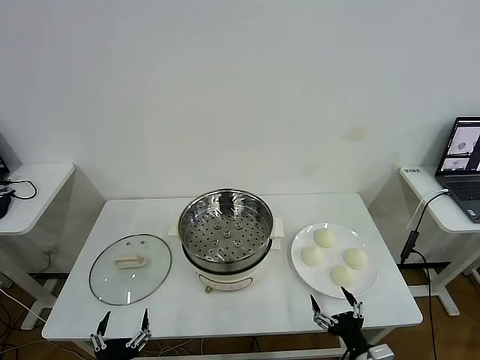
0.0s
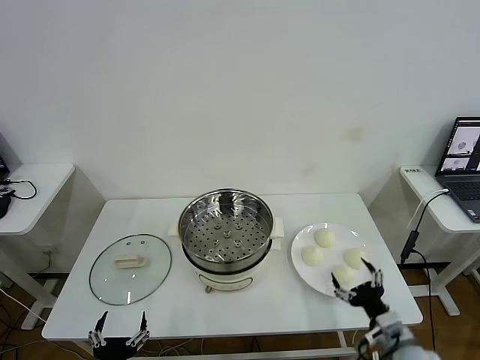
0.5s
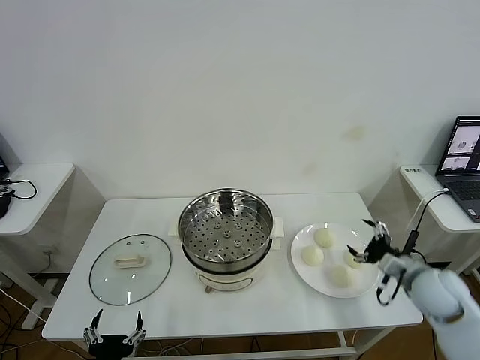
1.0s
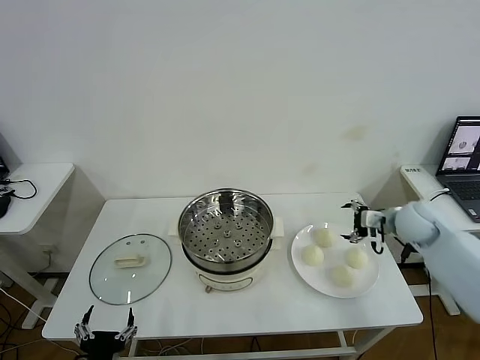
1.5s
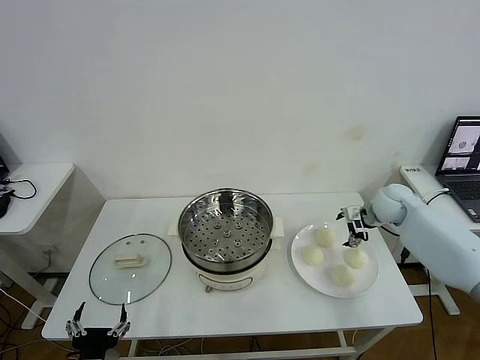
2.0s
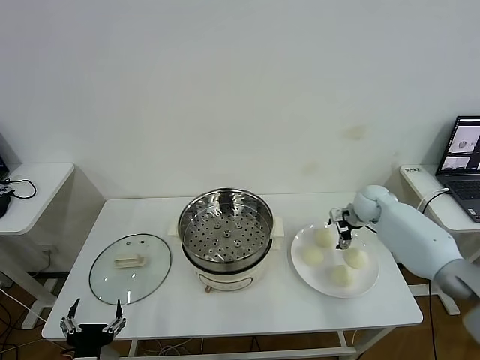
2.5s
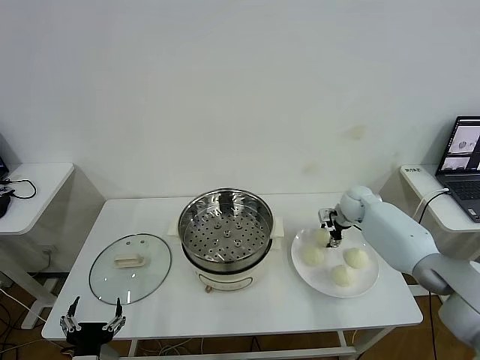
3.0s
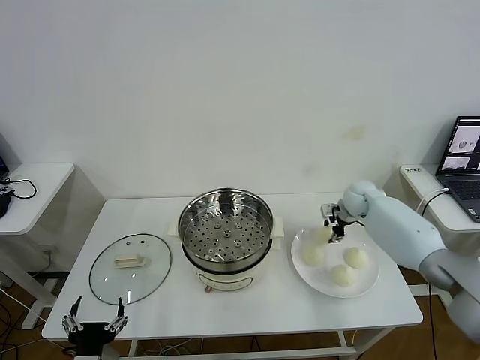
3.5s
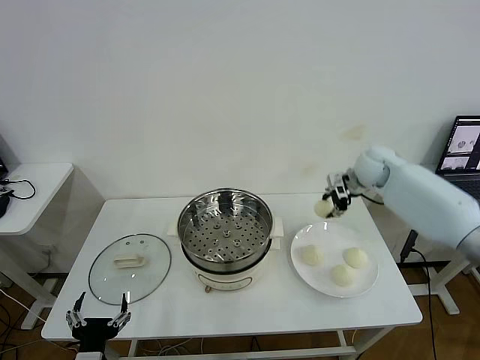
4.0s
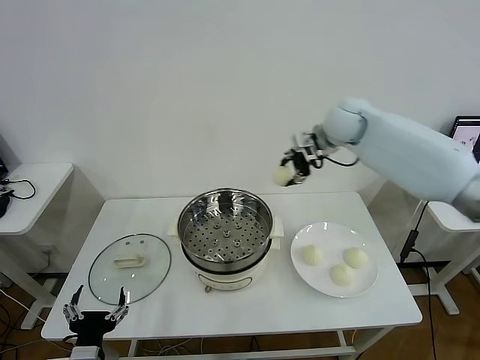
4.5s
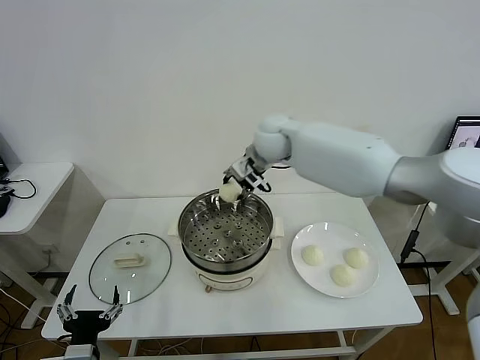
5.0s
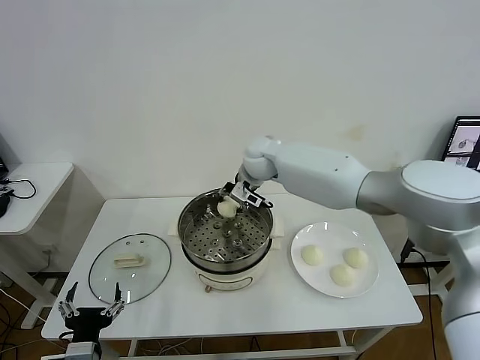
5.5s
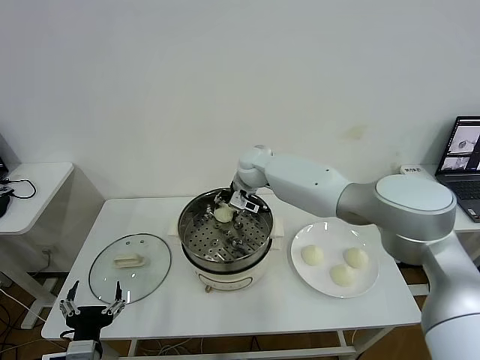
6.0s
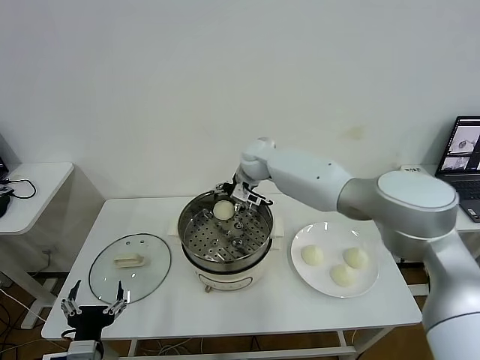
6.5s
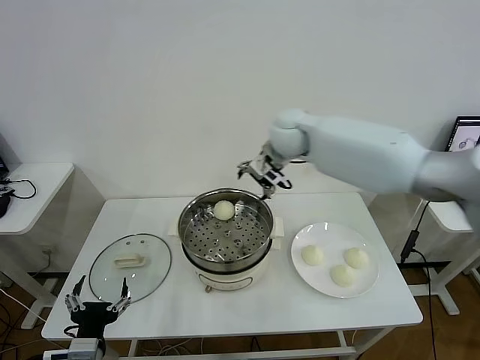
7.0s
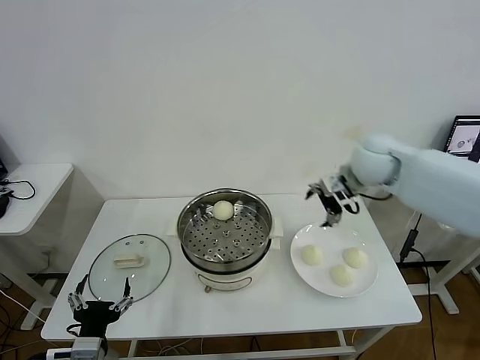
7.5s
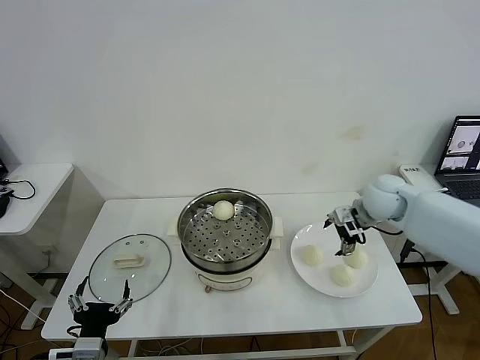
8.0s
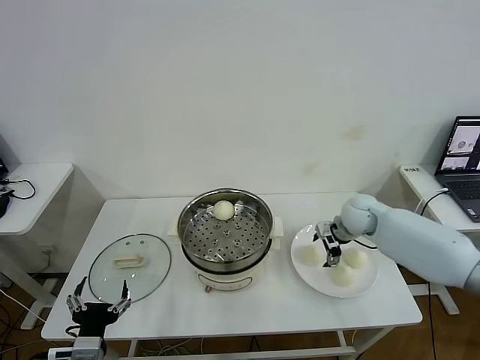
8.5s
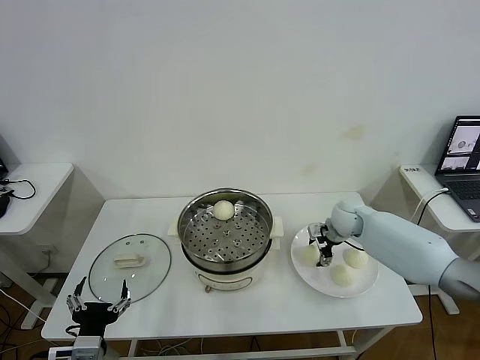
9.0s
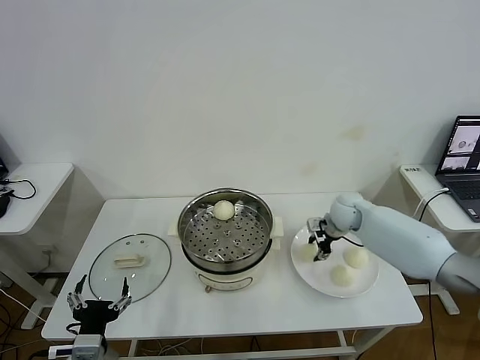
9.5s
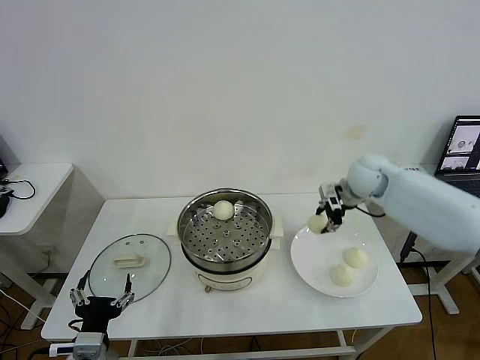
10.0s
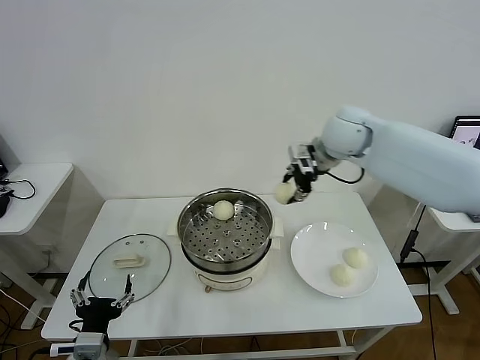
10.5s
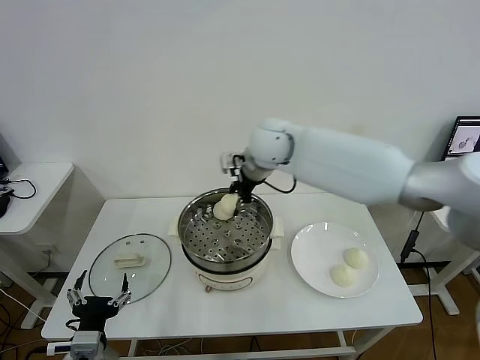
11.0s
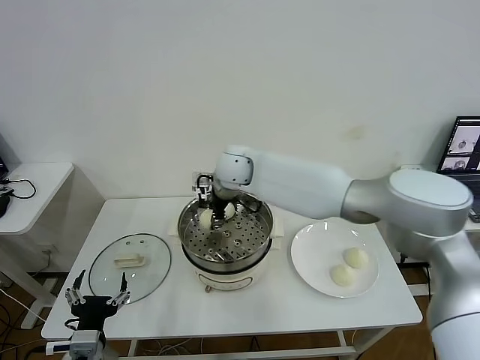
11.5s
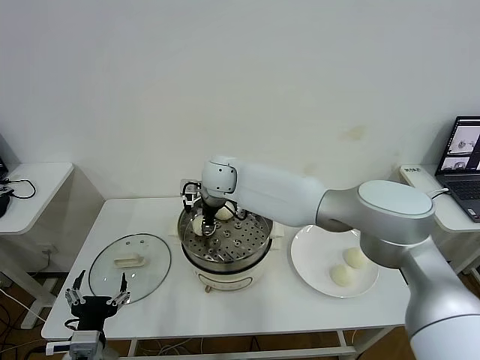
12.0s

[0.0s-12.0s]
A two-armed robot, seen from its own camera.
Task of the whole recording: take steamed baozi put them in steamer then cover it.
Step, 0.0s to 3.0s: Grasp the baozi in the plate with right gripper.
Step, 3.5s to 6.0s: Place the baozi on the steamer with right gripper.
Step, 6.5s to 9.0s: Grasp the baozi in the plate with right gripper.
2.0s to 4.0s: The right gripper moves upward and to the left, some 10 cm, and closes up.
4.0s to 6.0s: The right gripper shifts approximately 30 cm to the left.
6.0s to 8.0s: The right gripper moves to the right, about 30 cm, and opens its fingers.
8.0s to 10.0s: The right gripper reaches roughly 10 cm downward, then returns, and closes its fingers.
10.0s to 12.0s: The right gripper goes approximately 35 cm to the left.

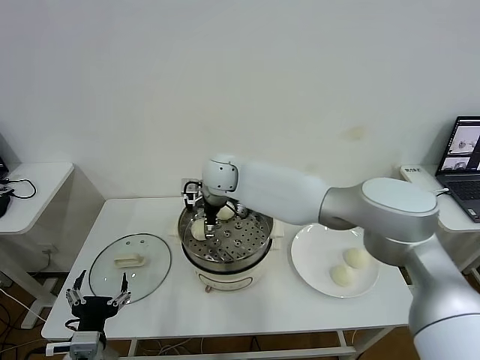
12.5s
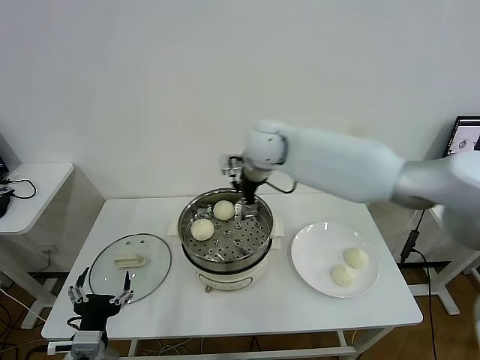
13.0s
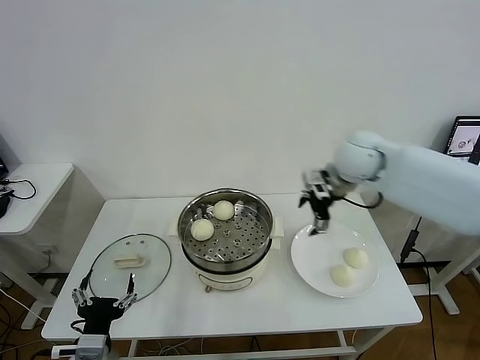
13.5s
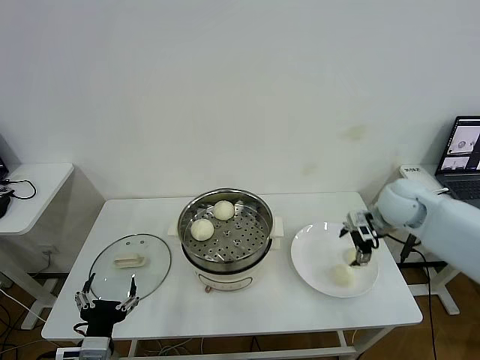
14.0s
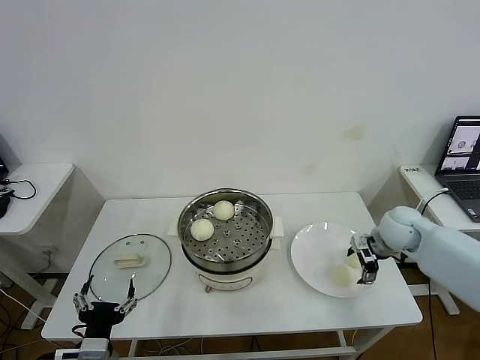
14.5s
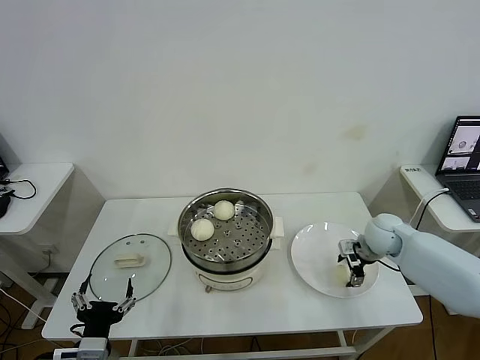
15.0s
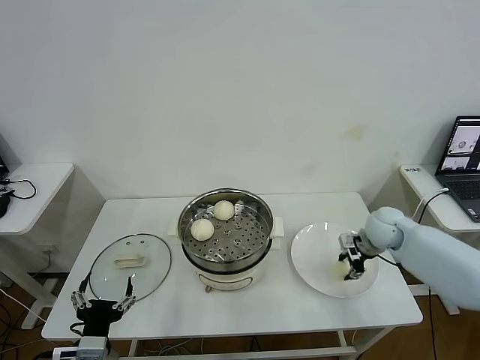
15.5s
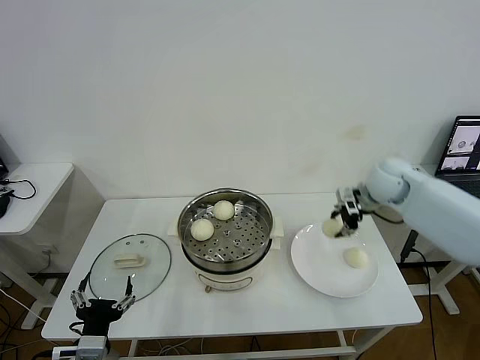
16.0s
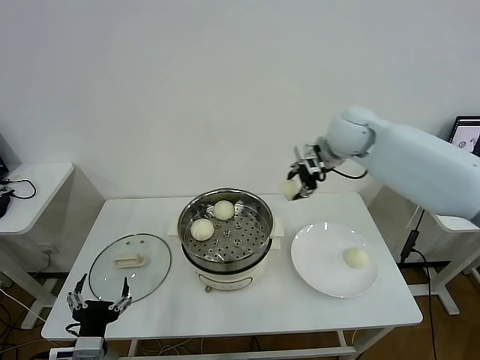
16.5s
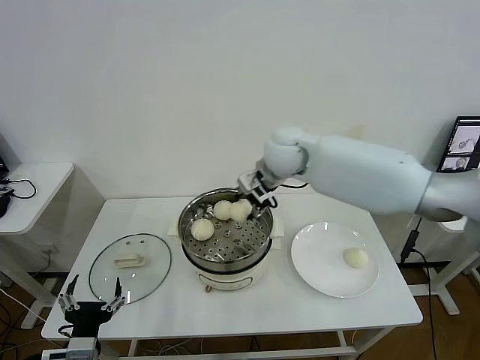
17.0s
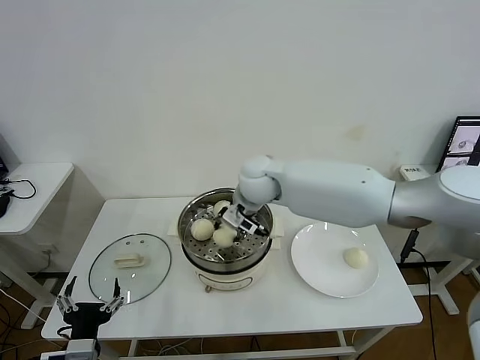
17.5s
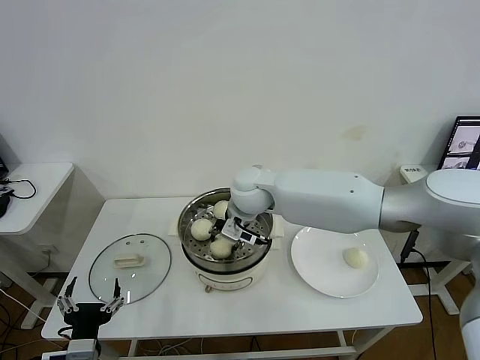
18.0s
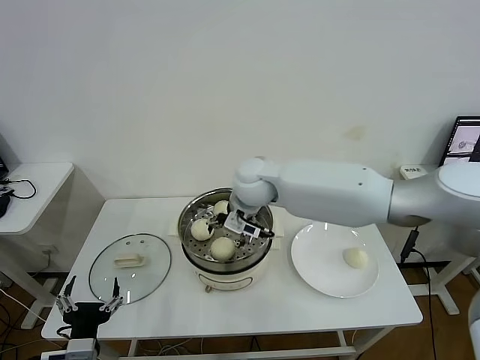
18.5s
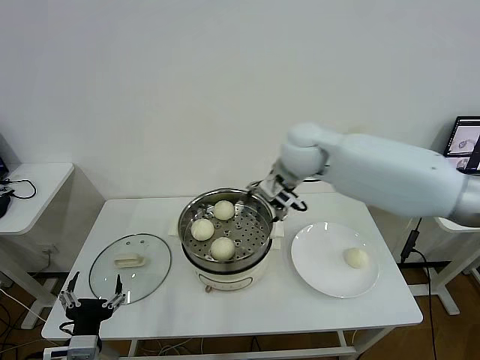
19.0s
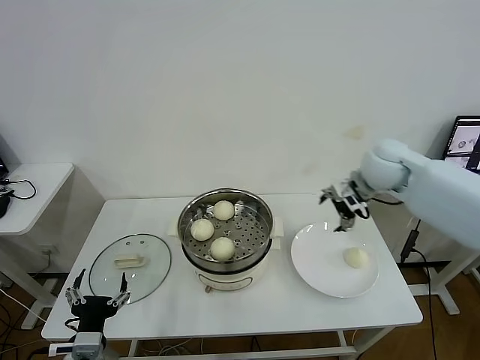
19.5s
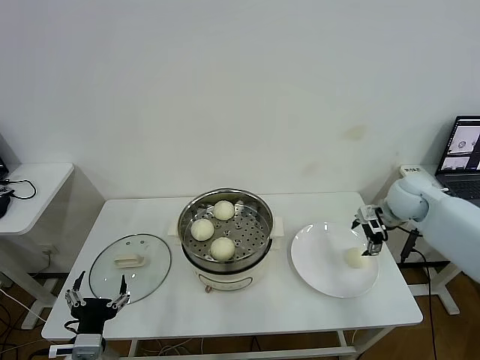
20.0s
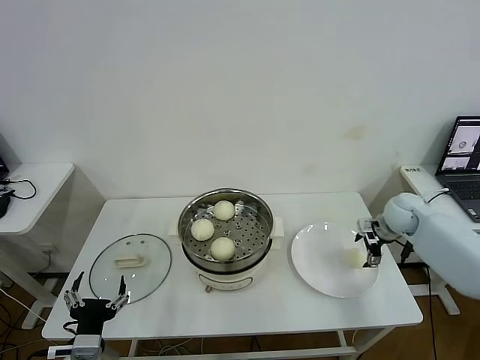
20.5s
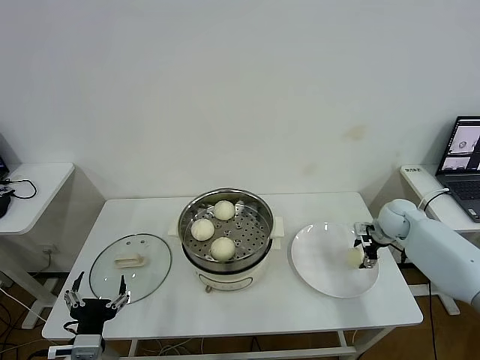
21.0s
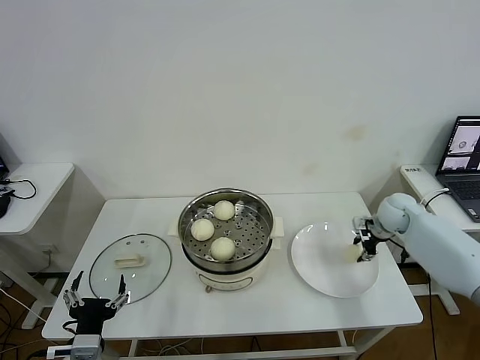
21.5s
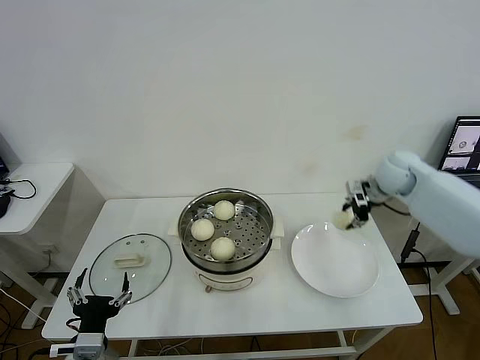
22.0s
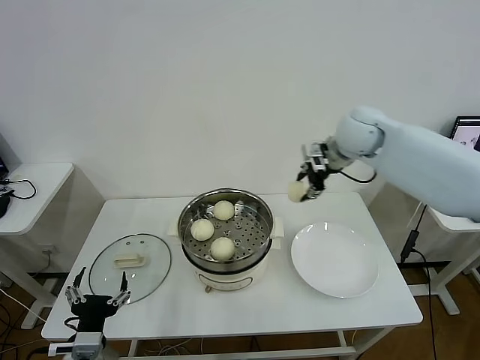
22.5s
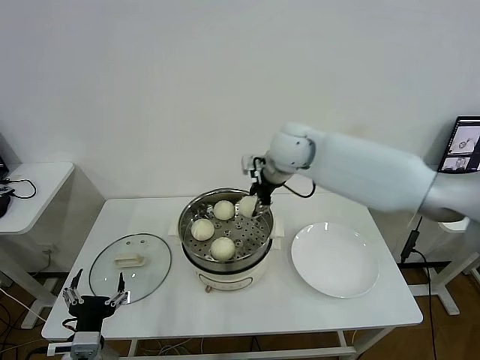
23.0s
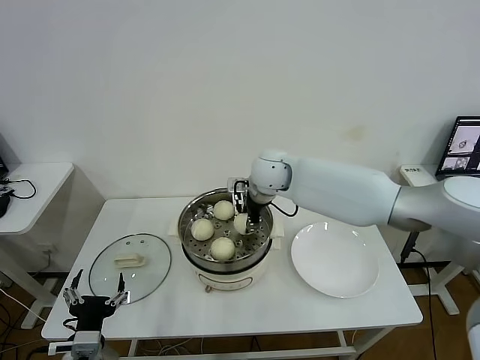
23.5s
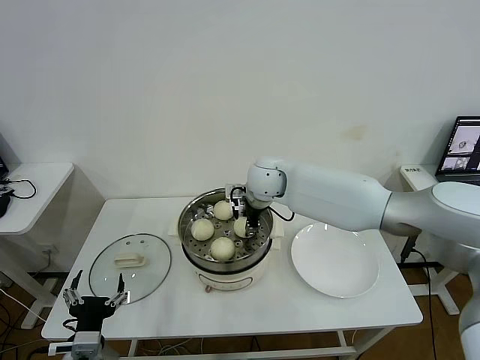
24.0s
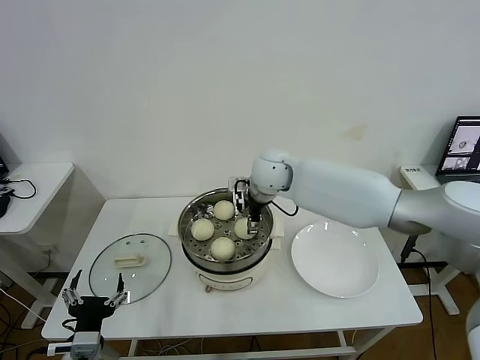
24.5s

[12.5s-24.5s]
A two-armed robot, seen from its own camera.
Task of the whole recording: take steamed baozi put them in steamer then cover it.
Step, 13.0s to 15.0s: Grasp the baozi in the plate with right gripper.
Step, 15.5s to 18.5s: Place the baozi on the steamer with right gripper.
Step, 19.0s to 21.0s: Grasp the baozi in the plate with right gripper.
Step, 22.0s to 24.5s: Place the baozi on the steamer with right gripper.
12.5s to 14.5s: The right gripper heads to the right, covering approximately 40 cm.
14.5s to 16.5s: The right gripper heads upward, to the left and forward, covering approximately 30 cm, and closes.
16.5s to 18.5s: The right gripper travels to the left and downward by about 20 cm, and opens its fingers.
18.5s to 20.5s: The right gripper moves to the right, some 40 cm.
20.5s to 22.5s: The right gripper travels upward and to the left by some 25 cm, and closes up.
22.5s to 24.5s: The right gripper heads to the left and downward, covering about 20 cm, and opens its fingers.

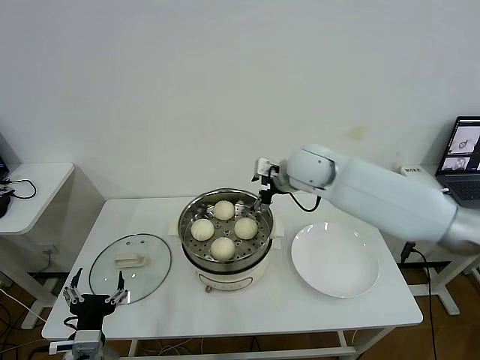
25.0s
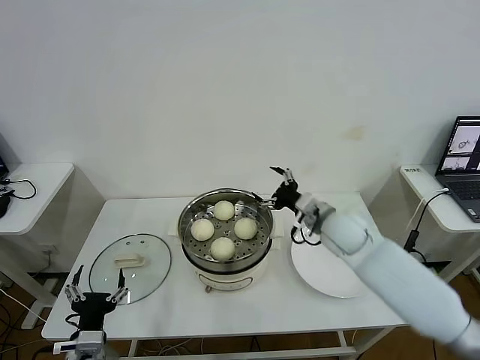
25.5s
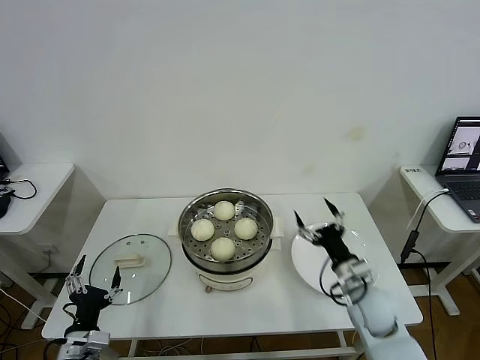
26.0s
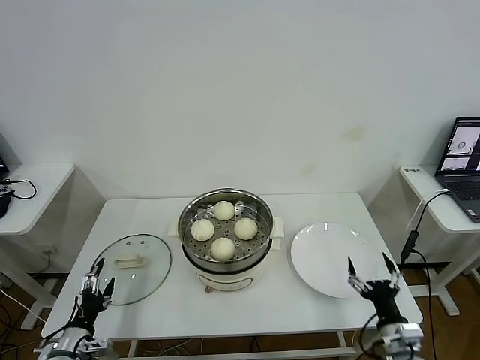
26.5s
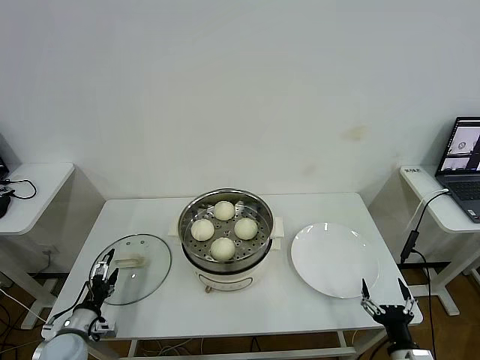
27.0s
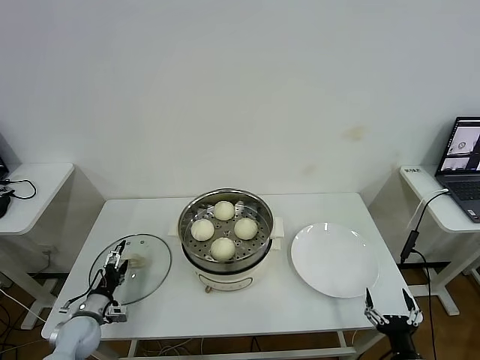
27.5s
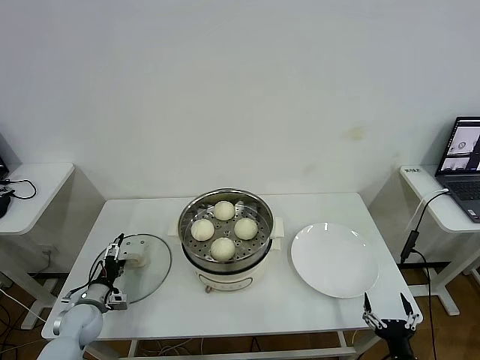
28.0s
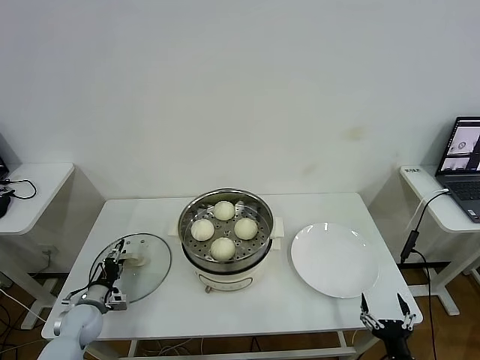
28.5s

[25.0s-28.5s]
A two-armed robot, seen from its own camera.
Task of the whole recording: take steamed baozi put them in steamer then cover it.
25.0s to 27.0s: The right gripper shifts approximately 50 cm backward, downward and to the right, while the left gripper shifts some 20 cm to the left, downward and forward.
27.0s to 28.5s: The left gripper is displaced forward by some 10 cm, and closes its fingers.
